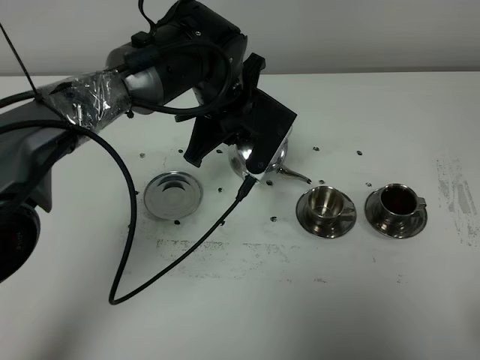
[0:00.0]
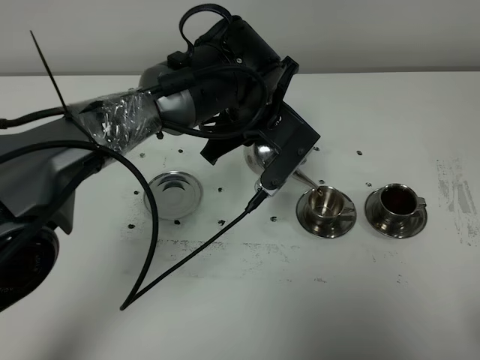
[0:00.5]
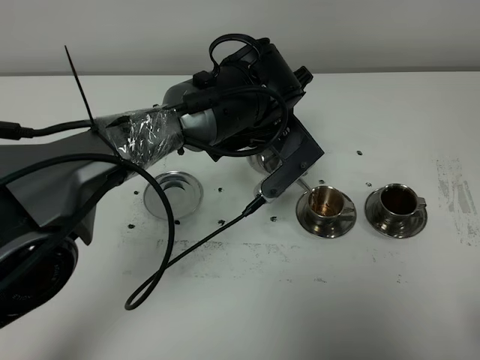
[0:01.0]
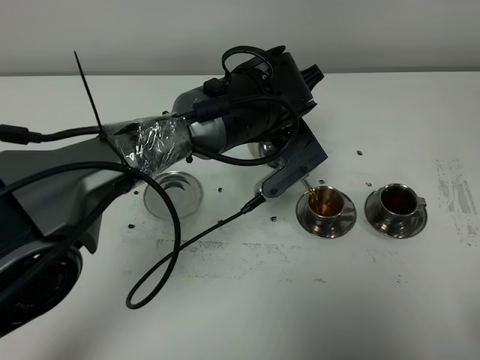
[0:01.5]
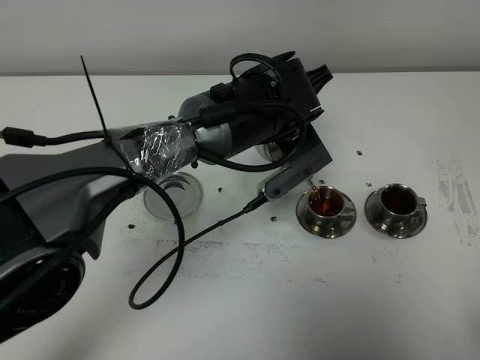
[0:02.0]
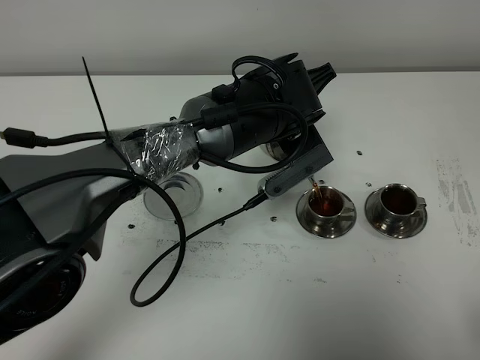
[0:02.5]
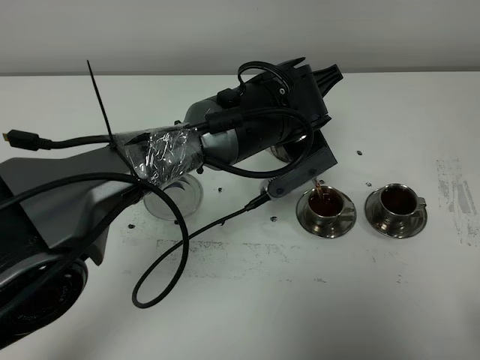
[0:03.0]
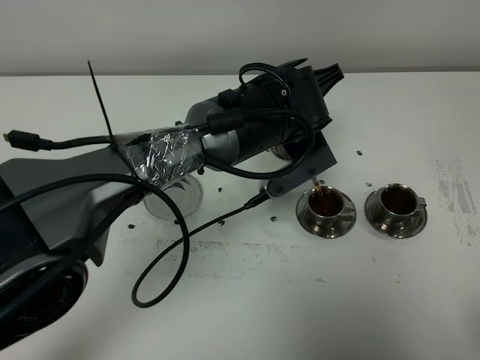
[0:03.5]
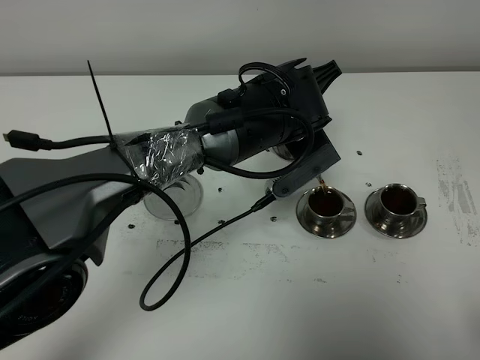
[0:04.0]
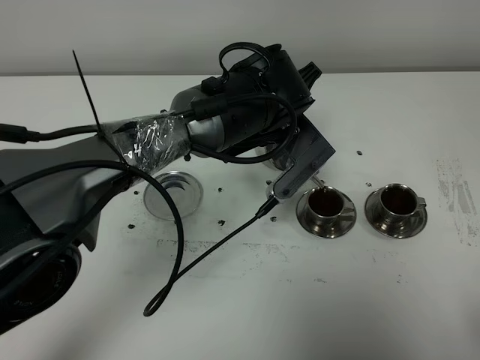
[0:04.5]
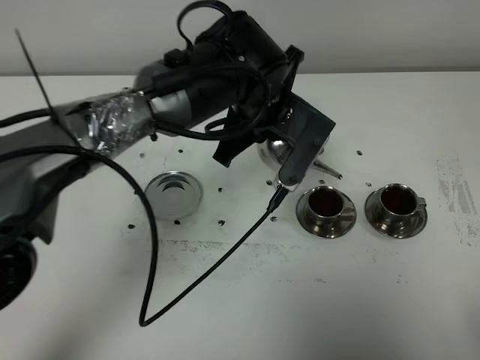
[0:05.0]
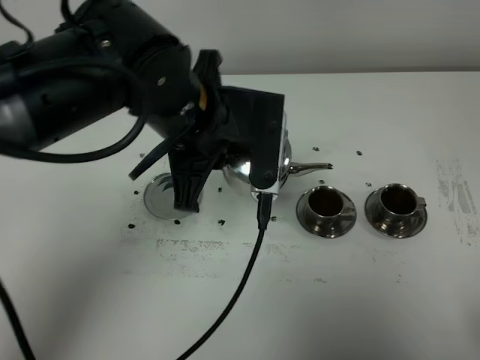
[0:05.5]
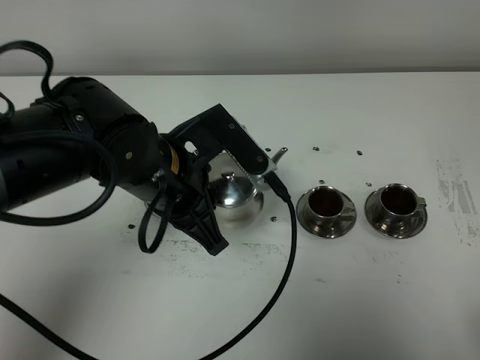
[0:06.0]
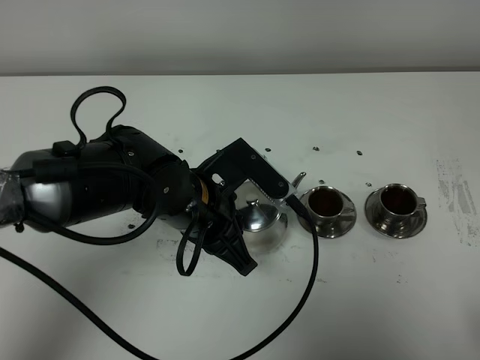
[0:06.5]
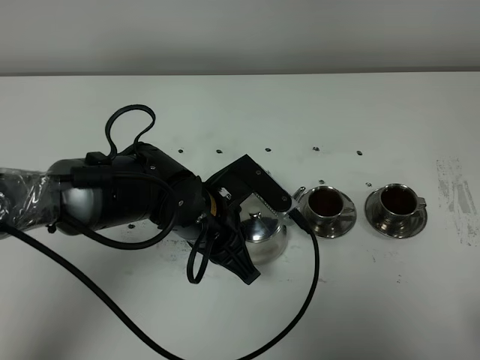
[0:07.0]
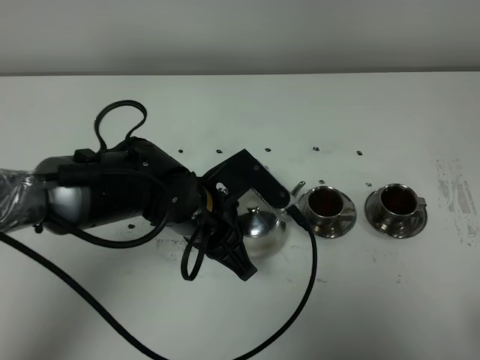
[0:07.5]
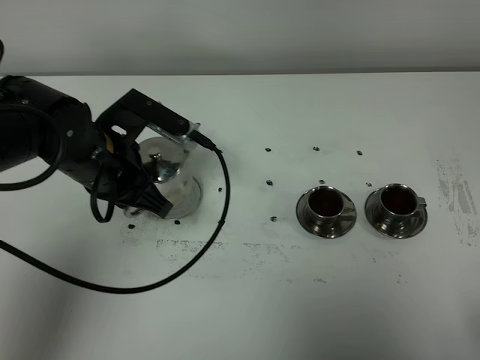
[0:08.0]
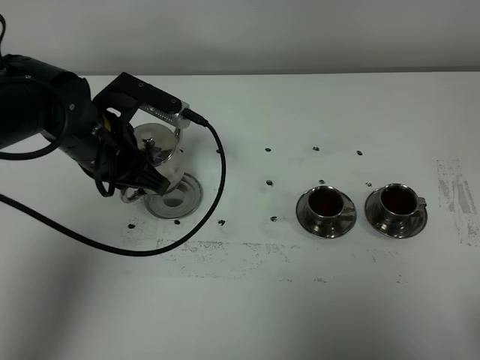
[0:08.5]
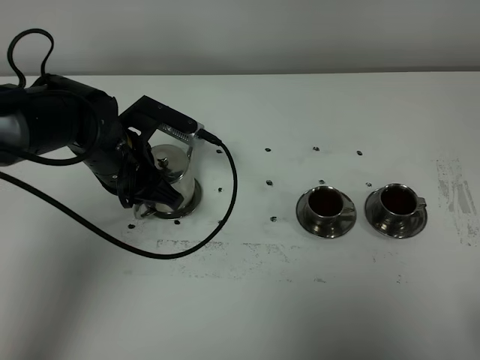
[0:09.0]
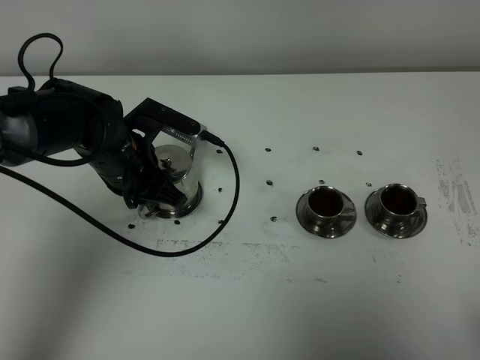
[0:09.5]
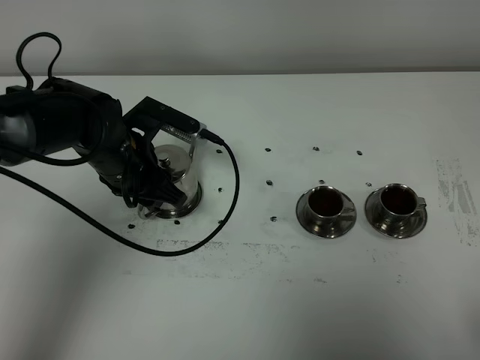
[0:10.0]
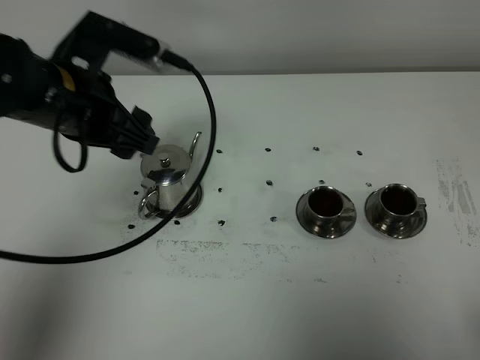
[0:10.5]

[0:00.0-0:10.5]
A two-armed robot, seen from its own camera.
Task of the whole recording: grasp the stainless steel teapot and pour the tea into the two stainless steel teacups one by one, put the stainless steel teapot back in its original place.
Step, 0:00.0 to 0:04.5: Pour tea into the teacup with the left gripper.
0:00.0 to 0:02.0: The left gripper moves to the right, roughly 5 cm.
0:02.0 to 0:04.0: The grippers stay close to where they were, moving slightly.
0:04.0 to 0:06.5: The left gripper shifts about 15 cm to the left and backward.
0:06.5 to 0:08.5: The left gripper travels to the left and forward by roughly 15 cm.
0:08.5 to 0:10.5: The left gripper is displaced upward by roughly 10 cm, and opens its fingers.

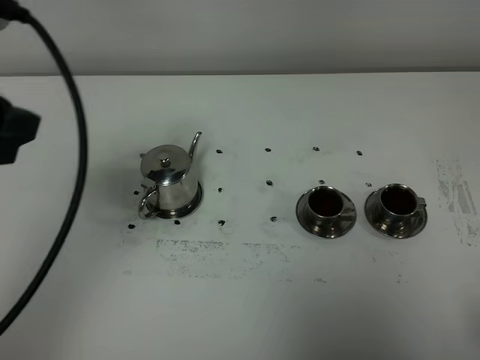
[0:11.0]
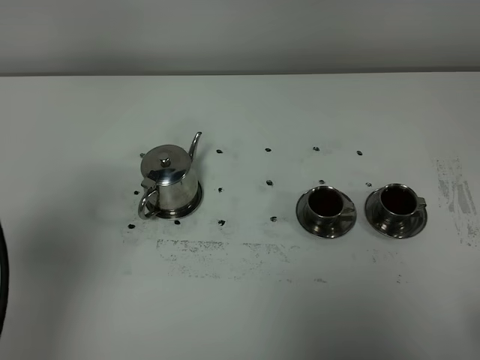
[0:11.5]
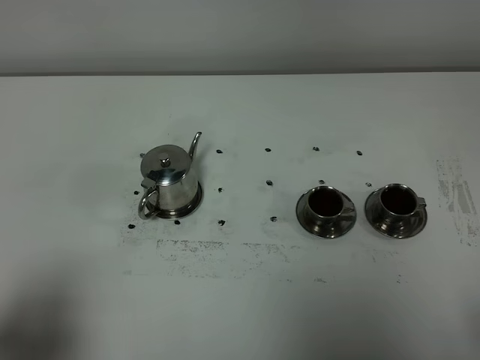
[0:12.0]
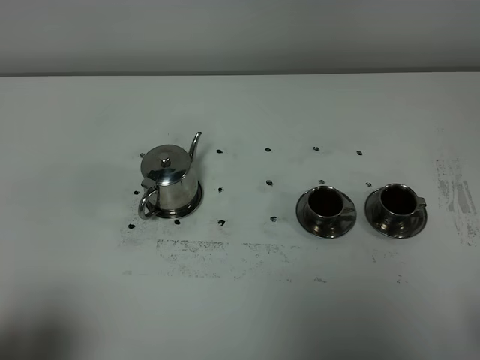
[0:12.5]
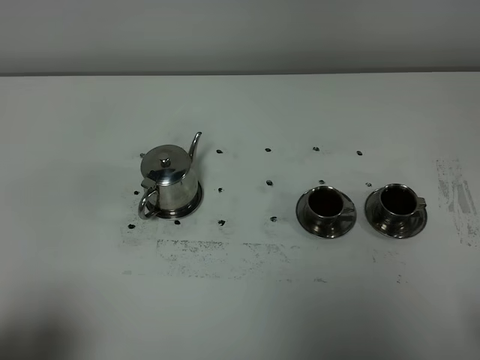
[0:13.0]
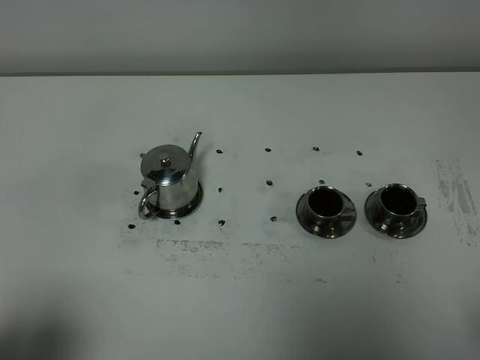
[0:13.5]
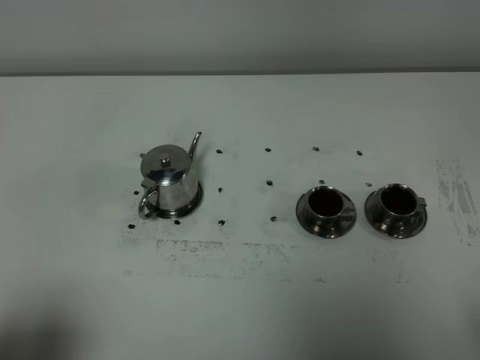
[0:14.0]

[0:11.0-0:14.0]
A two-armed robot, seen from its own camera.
Task of the whole recording: grasp the stainless steel teapot and pour the tea into the two stainless steel teacups one by one, put the stainless steel teapot back in its original place.
0:11.0 to 0:12.5: The left gripper travels backward and downward by roughly 25 cm.
0:12.5 to 0:14.0: Both grippers stay about where they are.

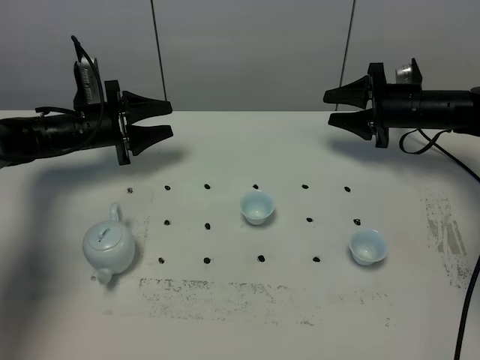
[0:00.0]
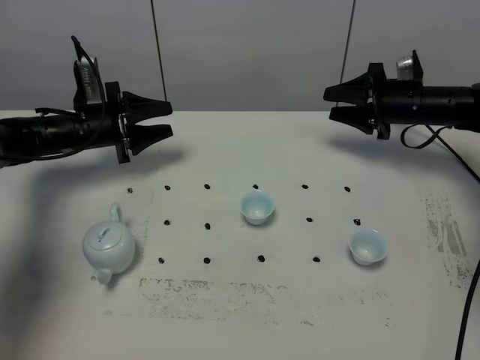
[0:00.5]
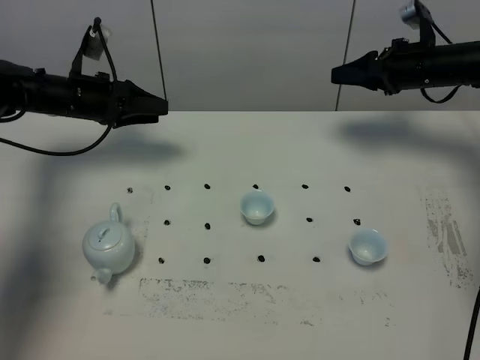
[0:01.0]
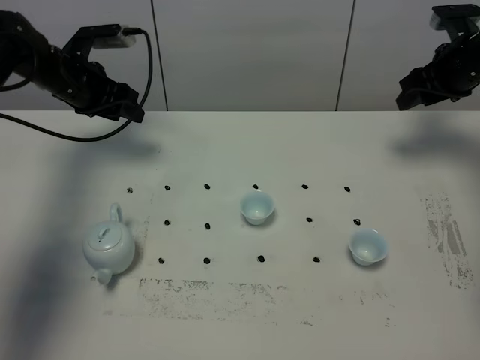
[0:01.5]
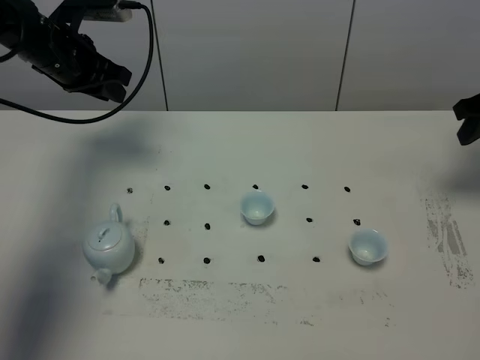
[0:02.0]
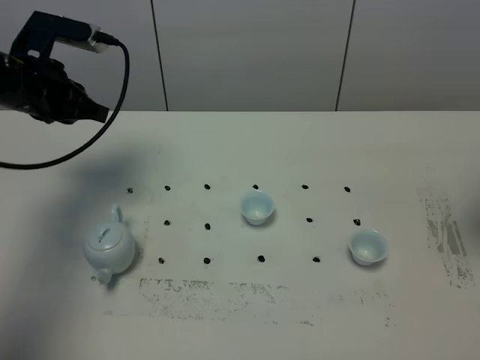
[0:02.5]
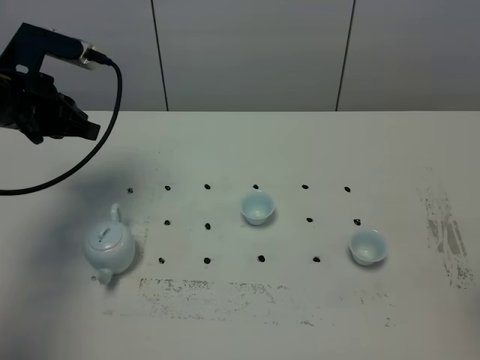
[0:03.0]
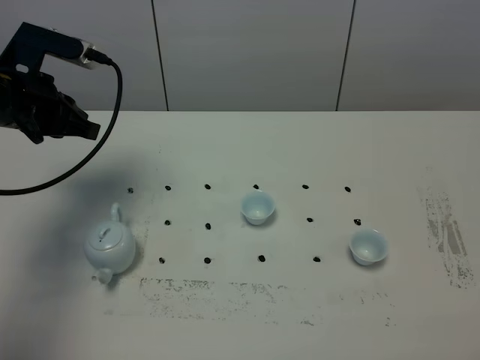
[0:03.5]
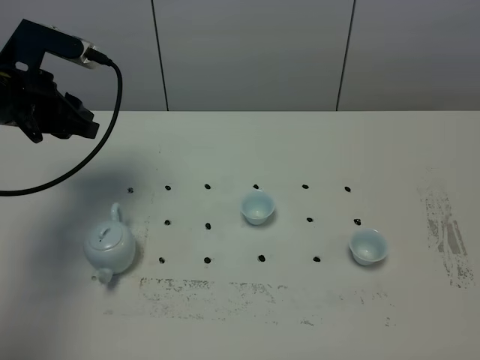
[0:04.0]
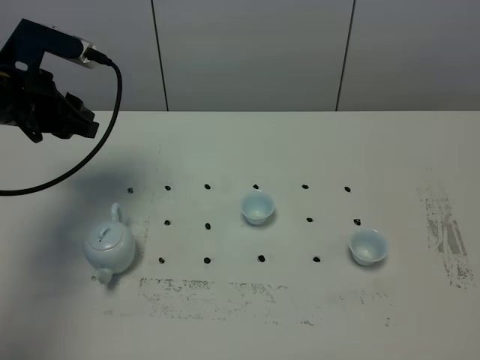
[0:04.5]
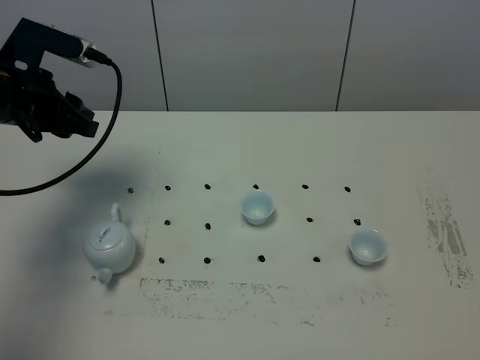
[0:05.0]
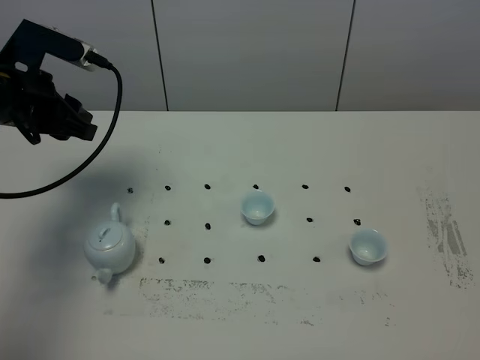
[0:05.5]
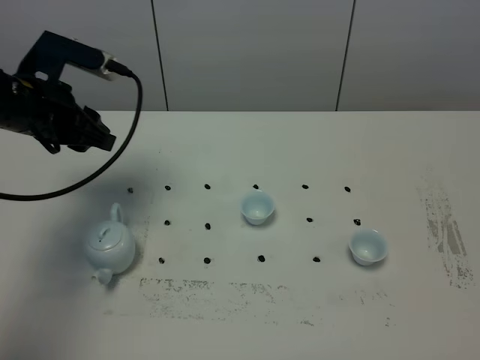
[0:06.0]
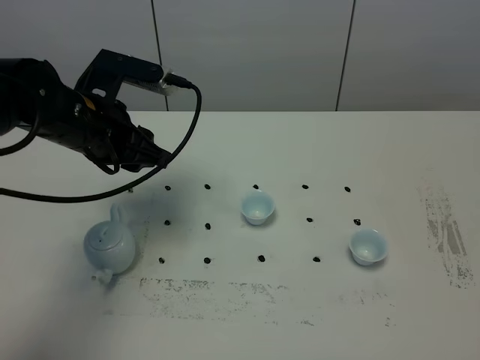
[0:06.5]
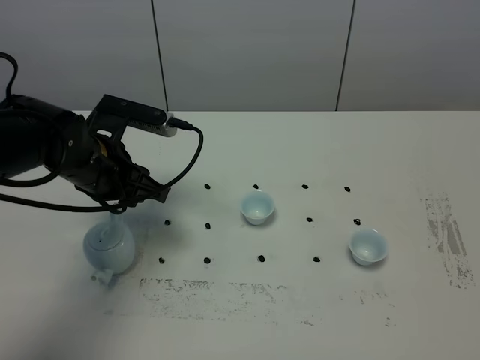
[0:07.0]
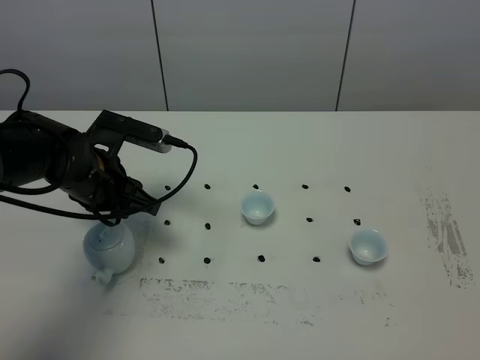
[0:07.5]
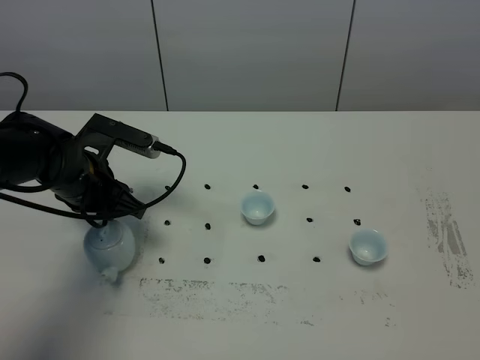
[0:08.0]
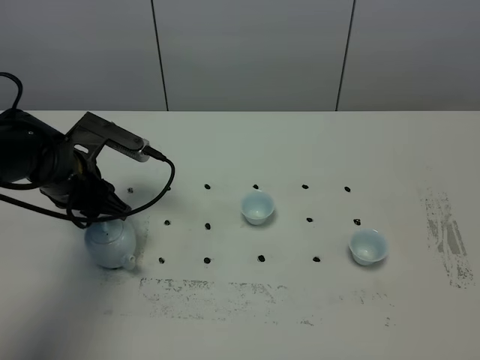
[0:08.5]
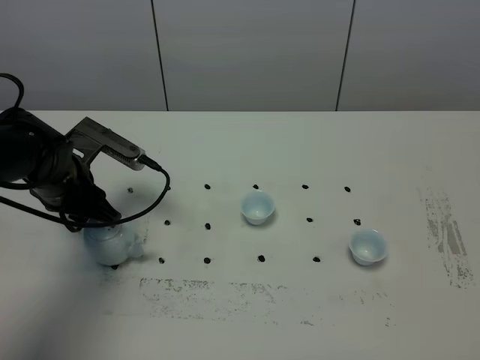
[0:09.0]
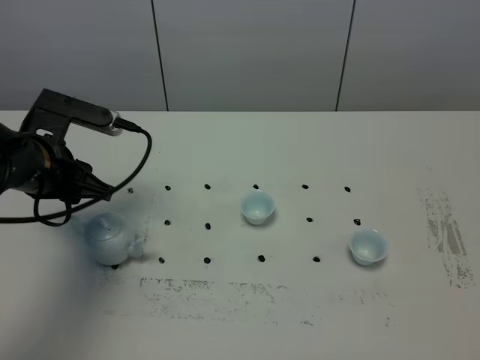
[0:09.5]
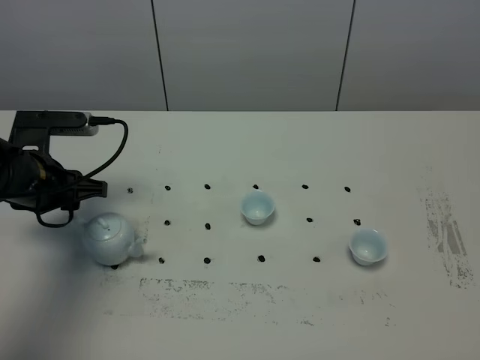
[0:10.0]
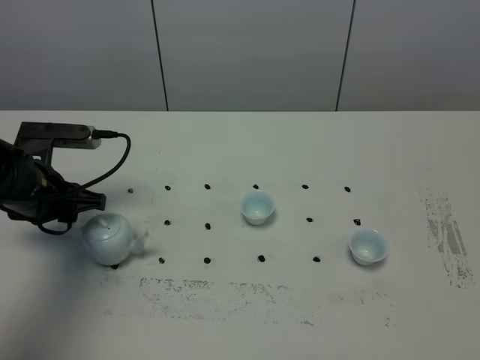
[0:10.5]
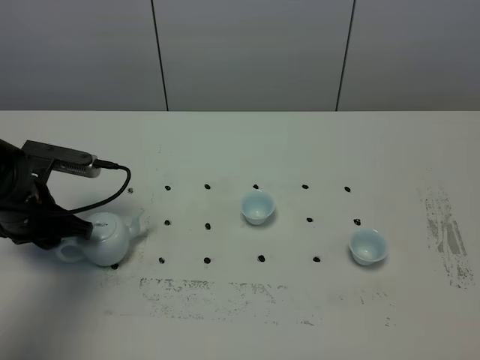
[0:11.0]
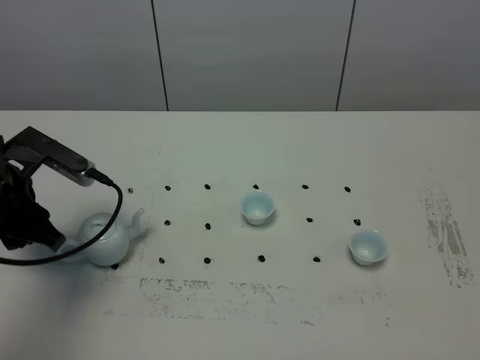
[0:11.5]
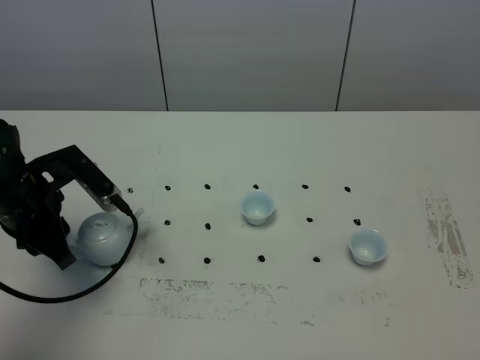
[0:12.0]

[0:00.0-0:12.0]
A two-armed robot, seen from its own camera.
Task of the whole recording: grasp the blue porcelain teapot and pour the tea into the two blue porcelain teacups one by one, put the blue porcelain teapot back in its original place.
0:00.0 to 0:02.0: The right gripper moves upward, to the right and backward, about 20 cm; the left gripper is displaced upward by about 15 cm, and closes.
0:02.0 to 0:04.0: The left gripper moves backward, about 10 cm. Meanwhile the right gripper travels backward by some 40 cm, and closes.
0:04.0 to 0:06.0: There are only small adjustments of the grippers.
0:06.0 to 0:08.0: The left gripper is displaced downward by some 10 cm.
0:08.0 to 0:10.0: The left gripper is displaced to the left by roughly 5 cm.
